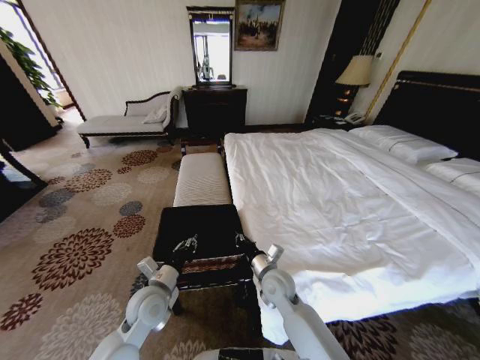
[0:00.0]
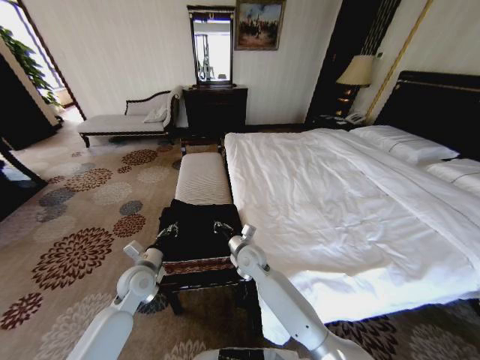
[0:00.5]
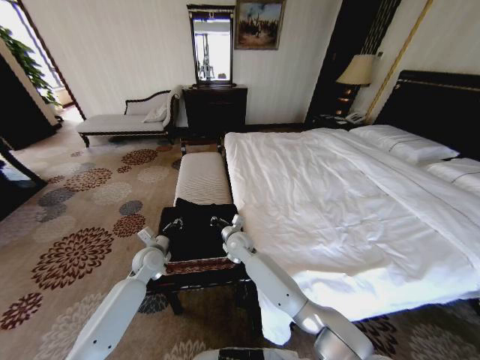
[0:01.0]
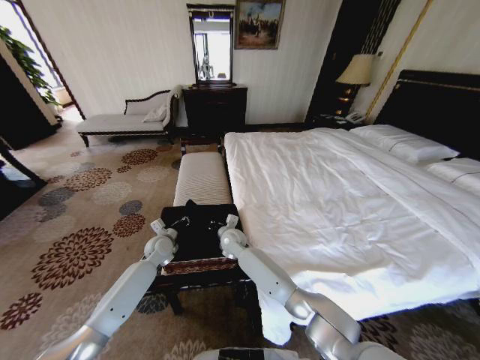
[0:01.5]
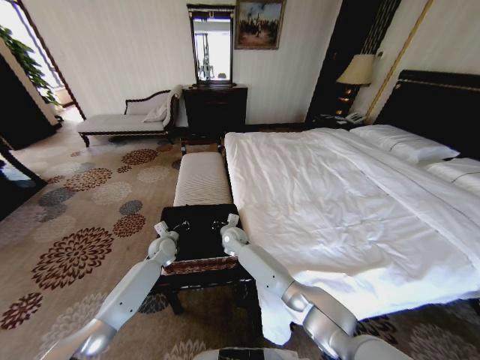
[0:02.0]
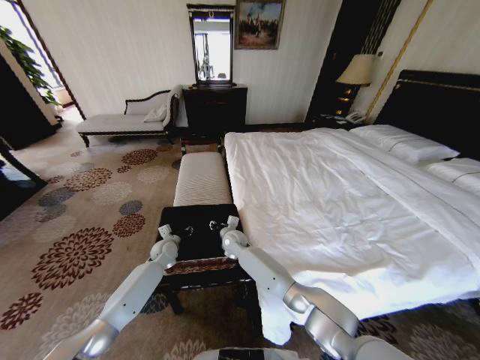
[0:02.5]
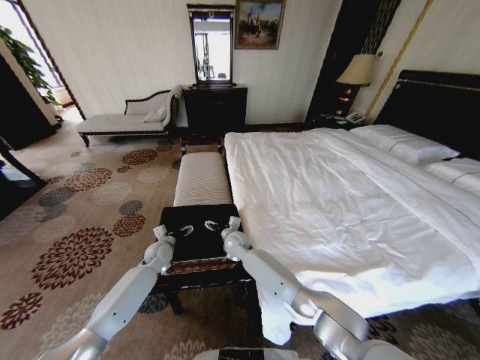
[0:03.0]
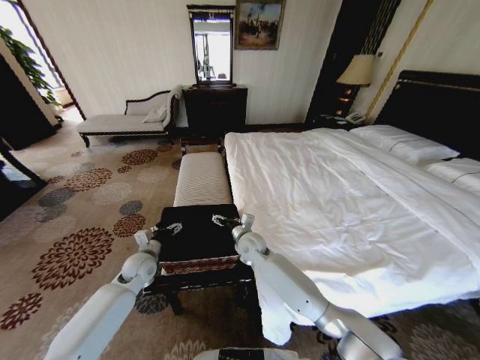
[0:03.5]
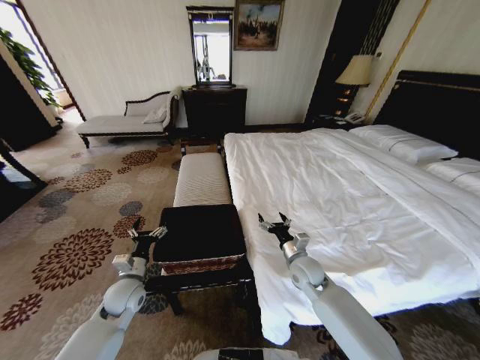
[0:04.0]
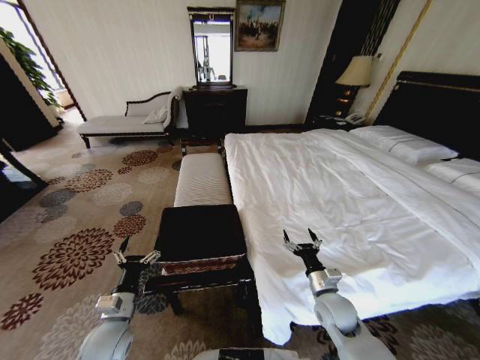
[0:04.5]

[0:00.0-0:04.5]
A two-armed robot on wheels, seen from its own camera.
Task of the whole recording: Fold the clothes on the bed and place them into the basket.
0:00.0 to 0:02.0: The left gripper shifts some 20 cm forward. Meanwhile the right gripper is displaced forward and to the left by roughly 20 cm.
0:02.0 to 0:04.5: The left gripper travels backward by some 25 cm, and opens its fingers. The right gripper heads to the right and backward, covering roughly 35 cm, and opens up.
